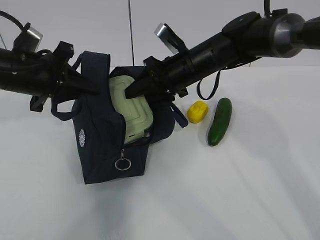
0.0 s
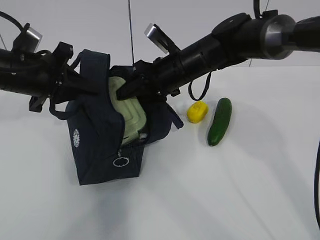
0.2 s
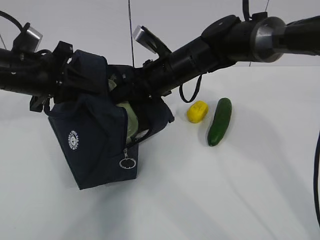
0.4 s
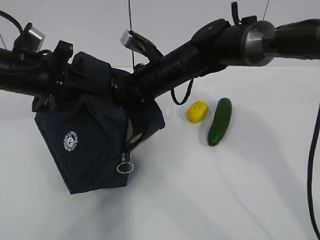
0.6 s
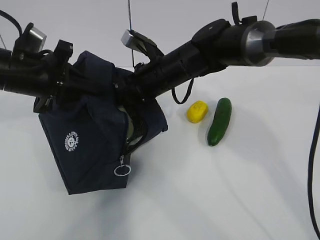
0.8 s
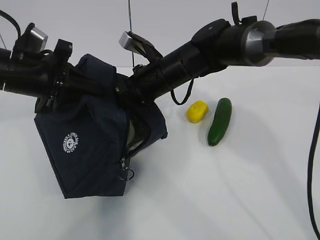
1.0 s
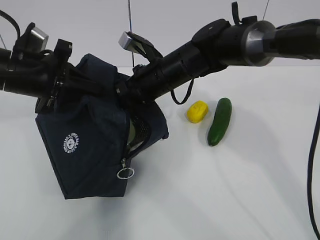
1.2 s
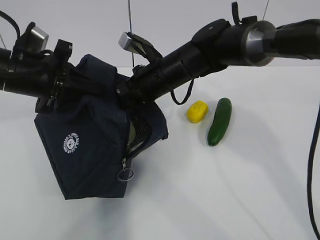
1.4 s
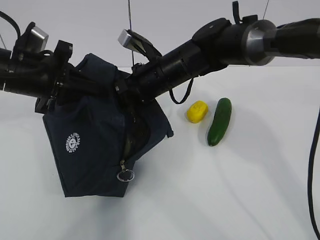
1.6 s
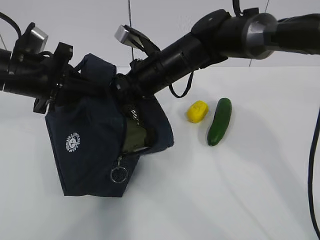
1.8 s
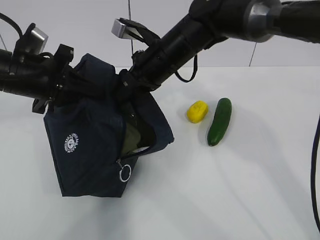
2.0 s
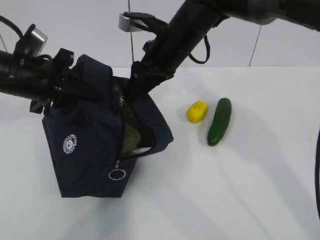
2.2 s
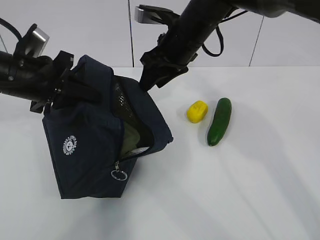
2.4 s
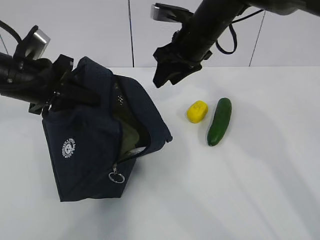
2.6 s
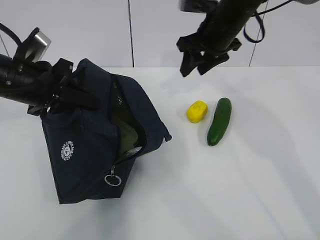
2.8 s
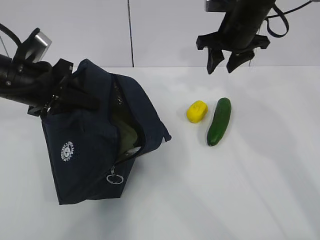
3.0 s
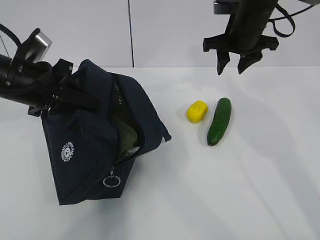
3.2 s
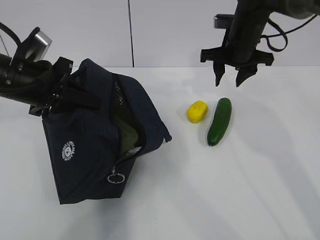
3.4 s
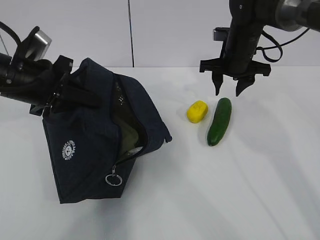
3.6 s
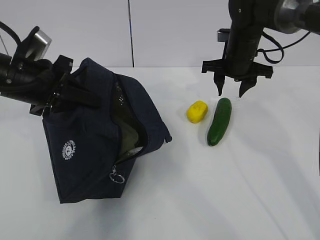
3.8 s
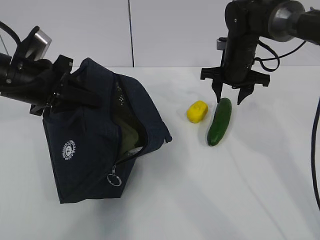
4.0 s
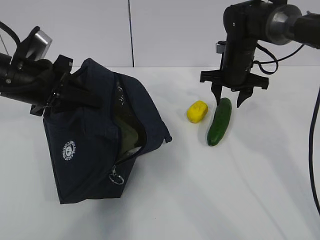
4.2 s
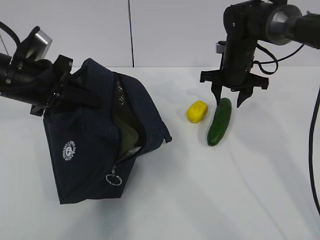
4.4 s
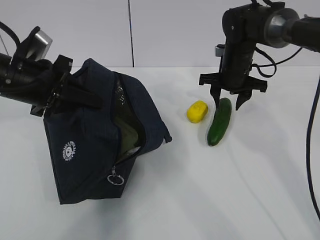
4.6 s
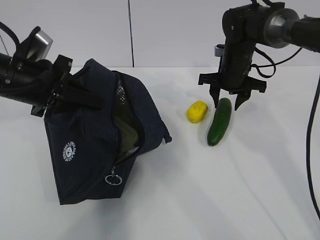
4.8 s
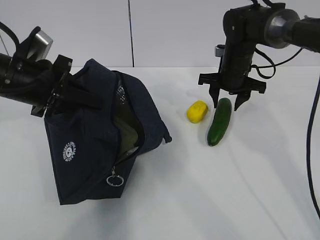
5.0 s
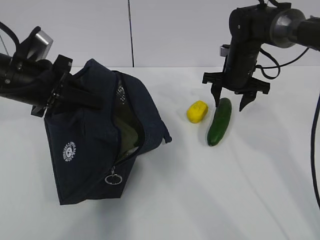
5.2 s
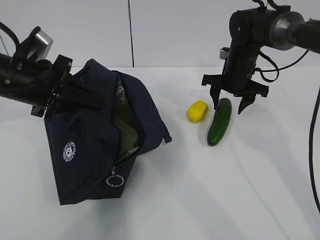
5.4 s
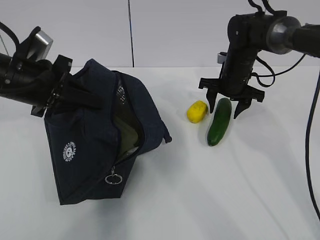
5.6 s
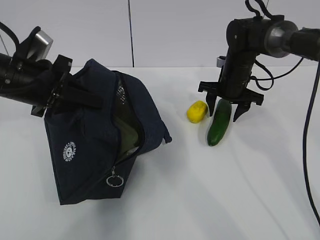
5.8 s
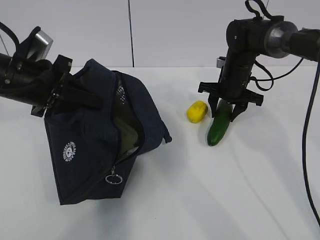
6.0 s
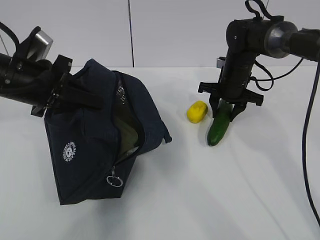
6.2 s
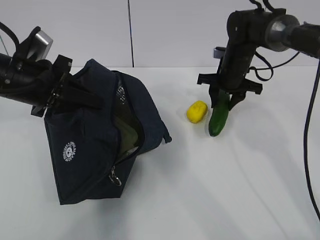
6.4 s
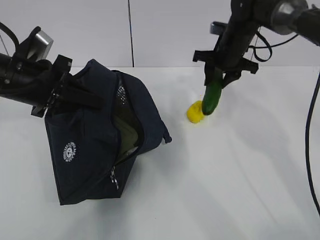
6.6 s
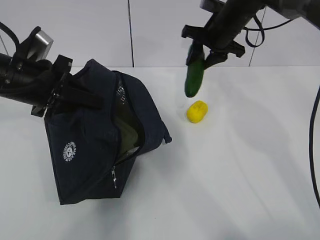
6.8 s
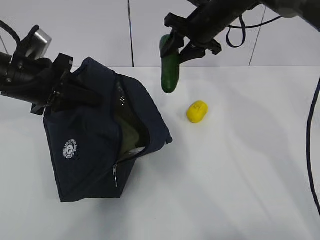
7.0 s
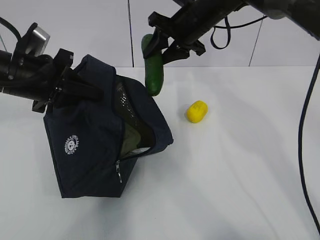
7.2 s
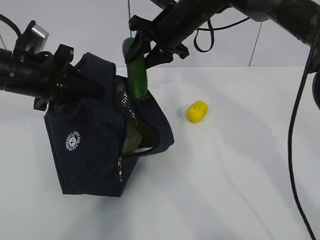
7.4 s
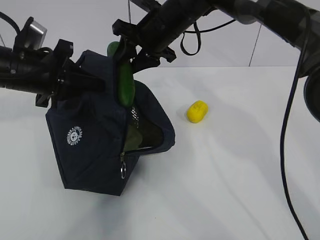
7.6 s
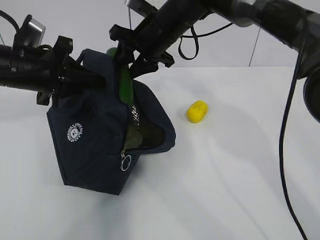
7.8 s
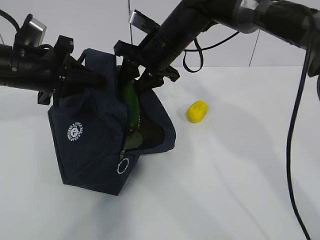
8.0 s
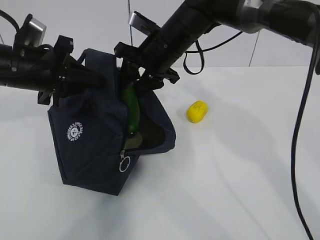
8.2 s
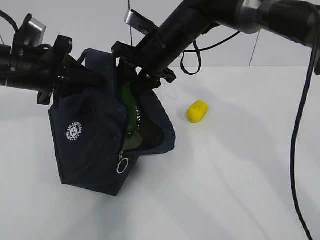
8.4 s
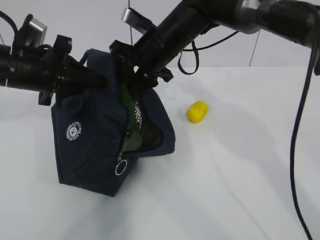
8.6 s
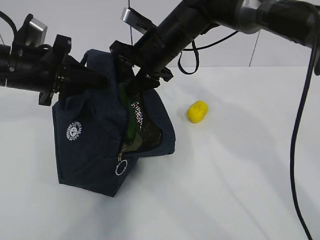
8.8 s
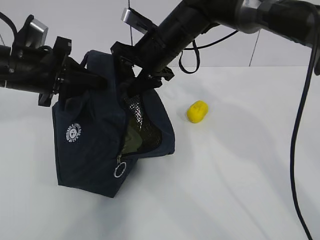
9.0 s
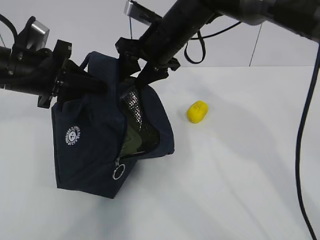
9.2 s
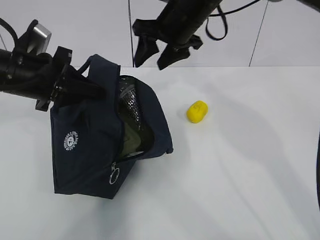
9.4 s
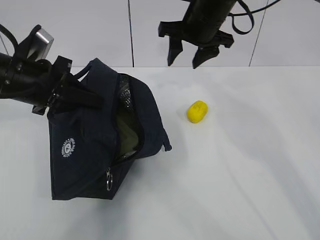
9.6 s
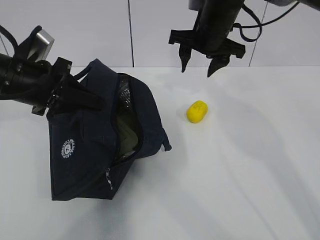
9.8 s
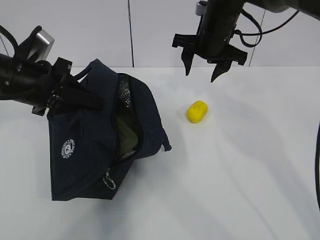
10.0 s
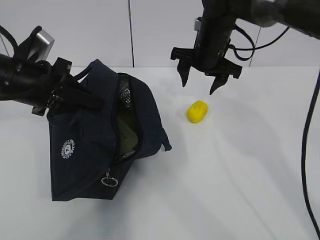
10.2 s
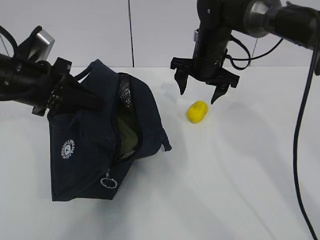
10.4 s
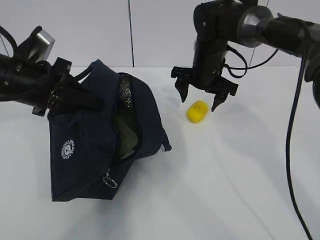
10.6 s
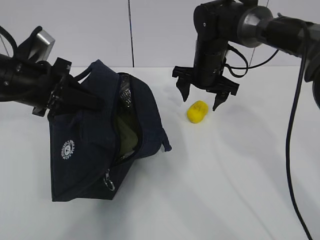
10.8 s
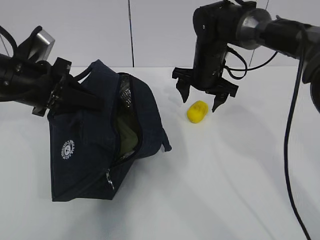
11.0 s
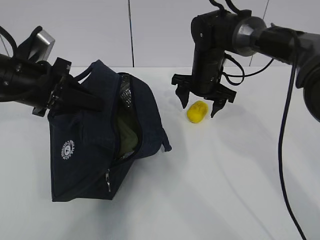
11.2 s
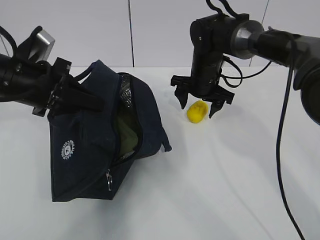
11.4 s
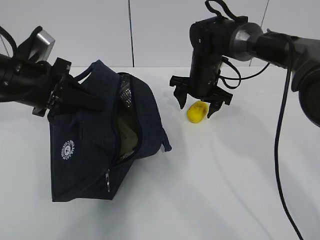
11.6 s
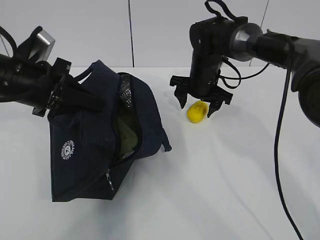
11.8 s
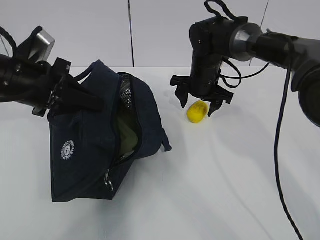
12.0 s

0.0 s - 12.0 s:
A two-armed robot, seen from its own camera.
Step, 1.2 s - 3.4 s: Place it into the bag with your right hand.
Step, 3.6 s - 6.6 s: Grab the lemon with your right hand.
Step, 9.4 s - 11.4 s: Grab the lunch bag with your right hand.
0.0 s - 1.6 s: The right gripper moves approximately 5 cm.
1.6 s - 3.0 s: The right gripper travels to the right and upward by approximately 15 cm.
3.0 s - 4.4 s: The right gripper shifts about 10 cm downward.
4.4 s - 6.0 s: The grippers make only small movements.
6.0 s - 7.6 s: The right gripper travels to the left and upward by about 20 cm.
7.6 s - 9.0 s: There are only small adjustments of the grippers.
9.0 s - 10.4 s: The right gripper moves to the right, approximately 10 cm.
10.4 s - 12.0 s: The right gripper changes place by some 5 cm.

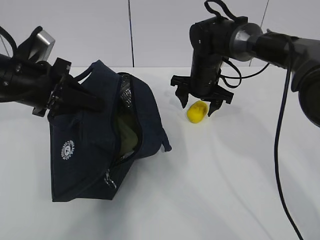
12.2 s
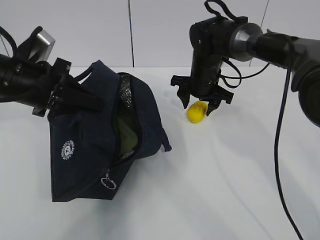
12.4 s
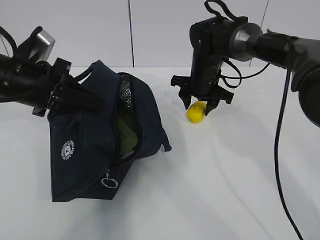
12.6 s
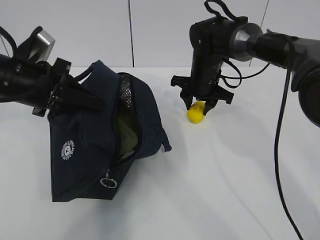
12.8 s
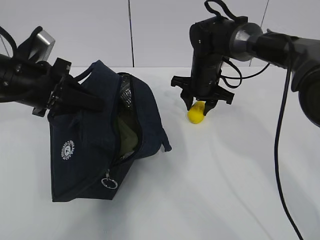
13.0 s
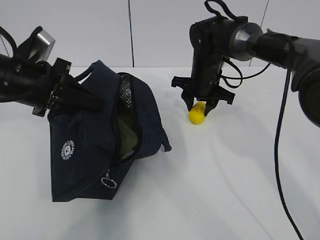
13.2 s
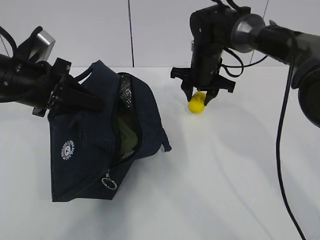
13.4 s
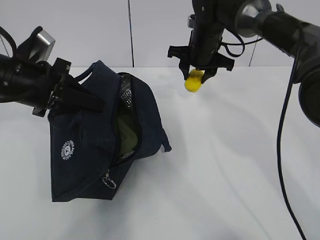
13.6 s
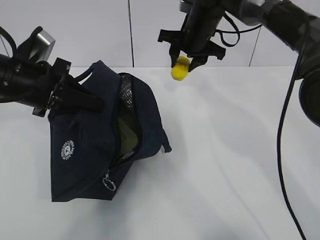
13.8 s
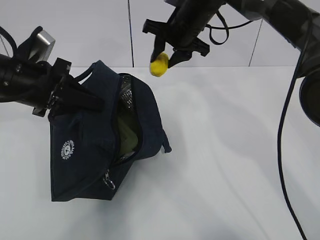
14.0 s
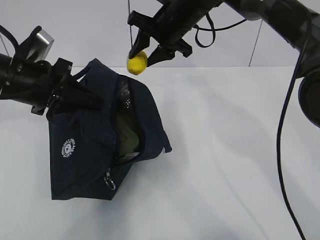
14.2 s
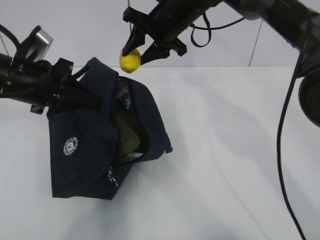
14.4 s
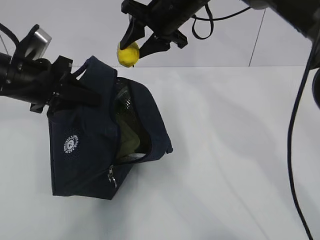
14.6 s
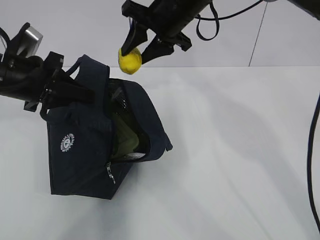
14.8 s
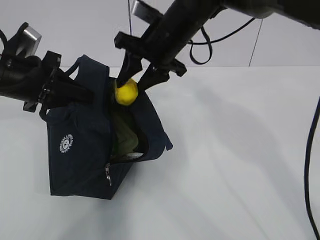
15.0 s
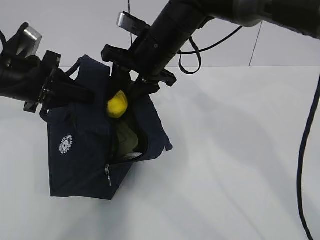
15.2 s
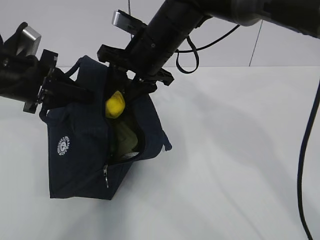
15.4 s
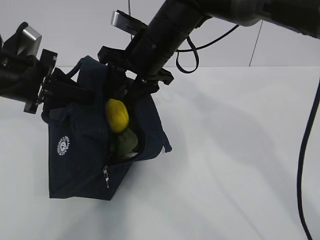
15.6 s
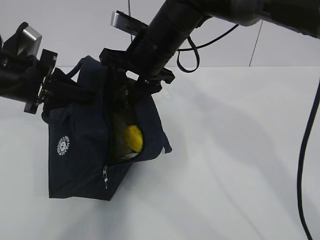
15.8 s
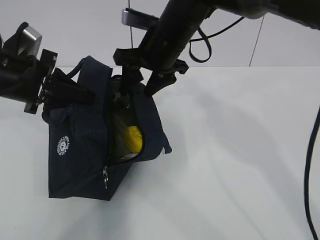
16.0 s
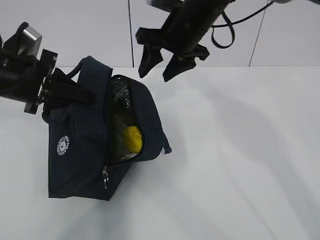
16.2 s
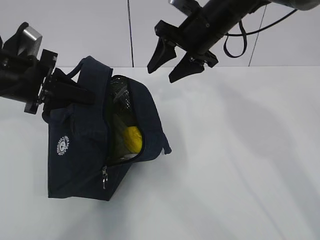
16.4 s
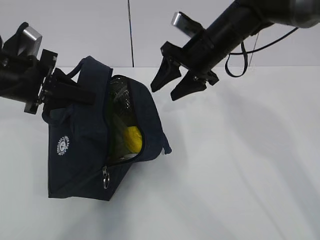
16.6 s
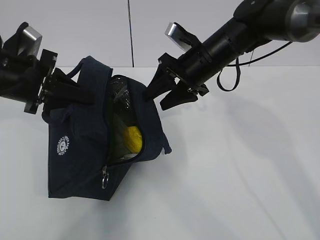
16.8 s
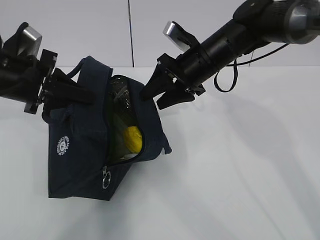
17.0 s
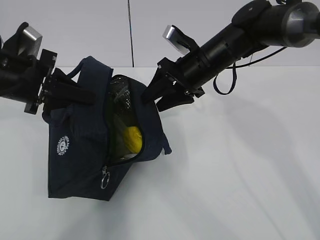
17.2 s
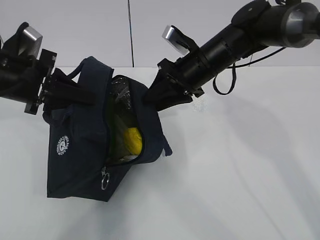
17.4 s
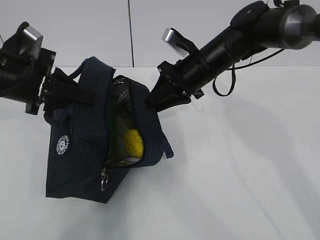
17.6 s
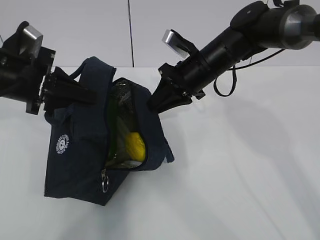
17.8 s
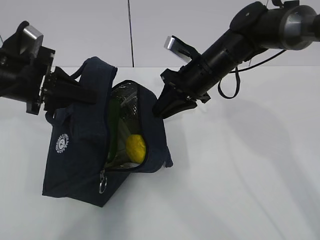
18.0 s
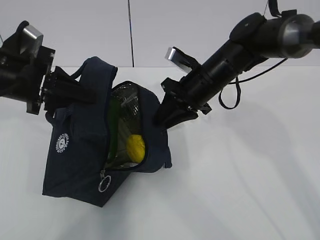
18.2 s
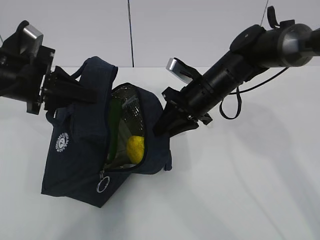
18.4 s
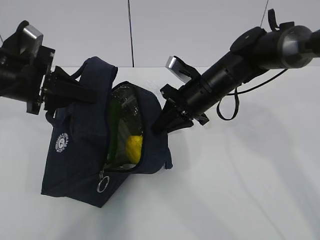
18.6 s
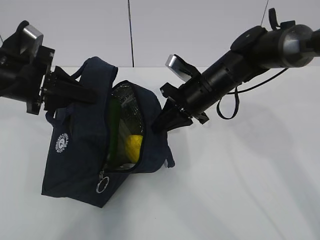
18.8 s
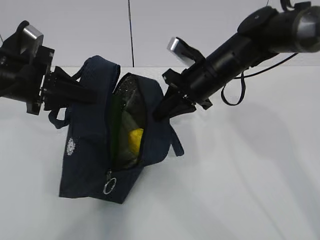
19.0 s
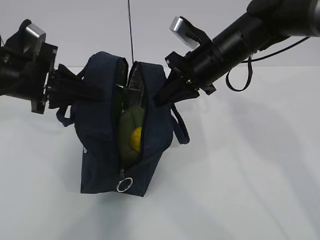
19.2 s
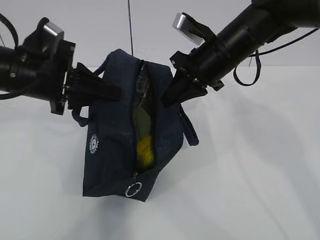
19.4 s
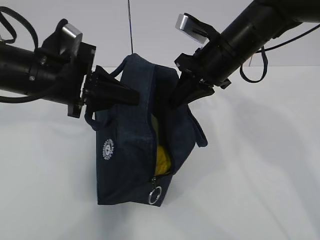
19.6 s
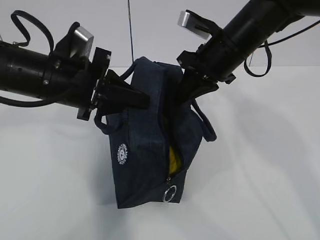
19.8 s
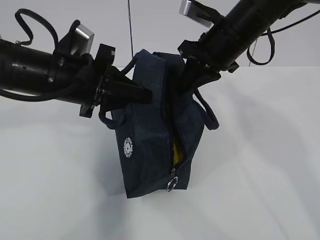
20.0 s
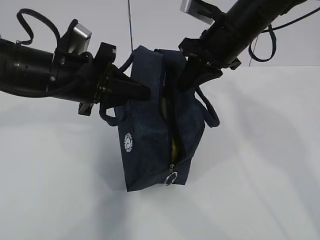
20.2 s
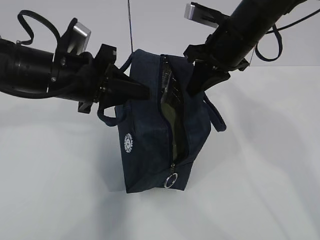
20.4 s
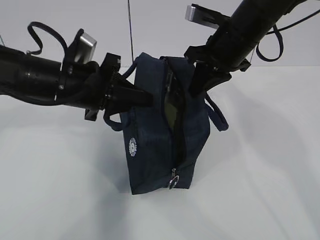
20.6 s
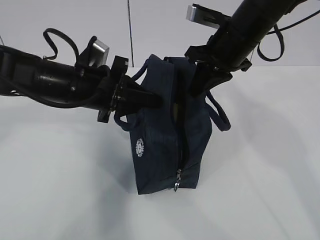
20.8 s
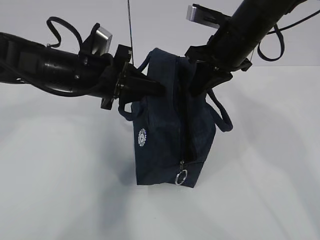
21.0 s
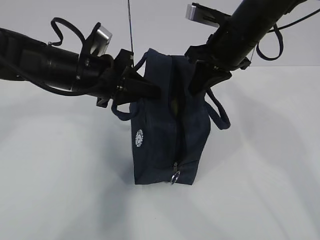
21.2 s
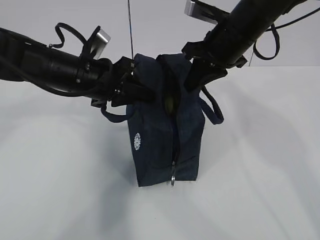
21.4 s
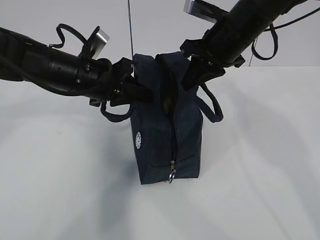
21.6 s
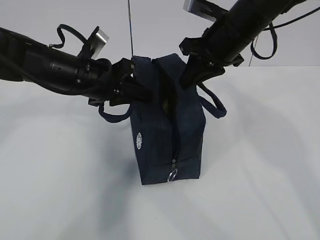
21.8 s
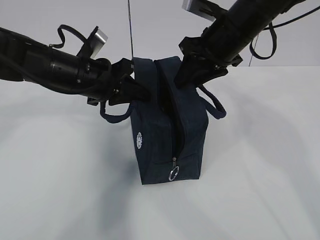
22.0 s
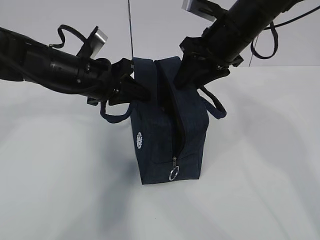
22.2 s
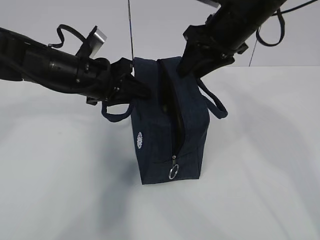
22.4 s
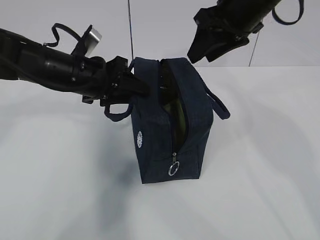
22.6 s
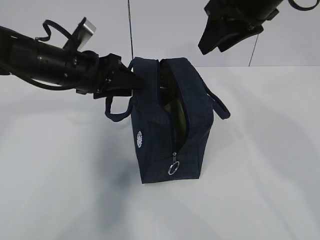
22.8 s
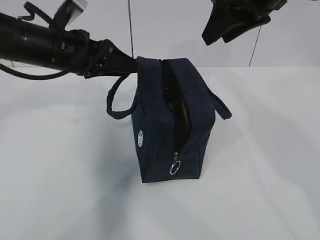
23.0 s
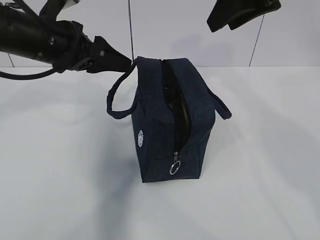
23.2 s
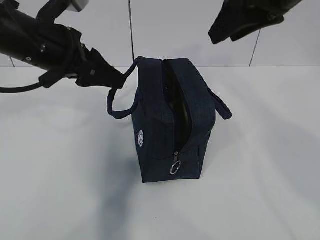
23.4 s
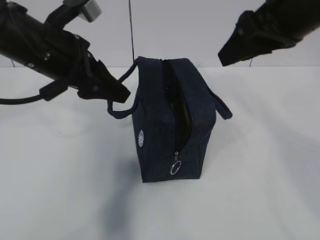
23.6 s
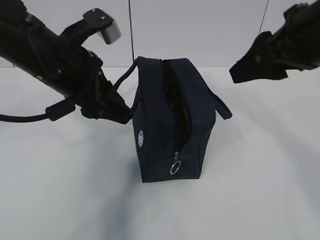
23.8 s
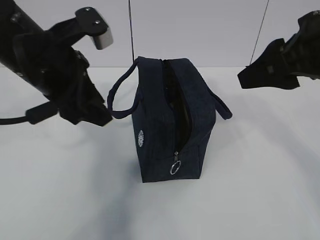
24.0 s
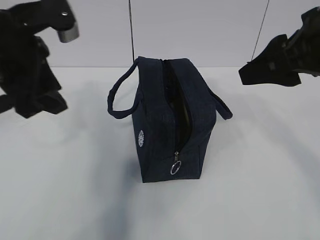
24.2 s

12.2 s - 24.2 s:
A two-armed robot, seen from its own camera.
12.2 s - 13.8 s: The right gripper is displaced upward by approximately 10 cm.
13.8 s - 15.2 s: The right gripper is displaced backward and to the left by approximately 10 cm.
15.2 s - 16.6 s: The right gripper moves to the right, about 10 cm.
16.6 s - 18.2 s: The right gripper moves downward, about 5 cm, and closes its fingers.
18.2 s - 19.8 s: The right gripper is displaced upward by roughly 10 cm, and closes; the left gripper shifts about 10 cm to the right.
19.8 s - 21.2 s: The left gripper moves forward, about 5 cm.
21.2 s - 22.6 s: The left gripper opens its fingers. The right gripper shifts roughly 5 cm upward, and opens its fingers.
22.6 s - 24.2 s: The left gripper goes some 15 cm upward and backward, while the right gripper travels backward by roughly 15 cm.
